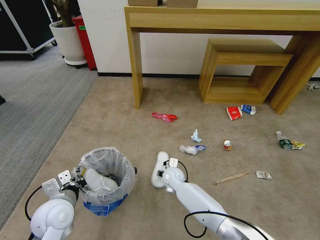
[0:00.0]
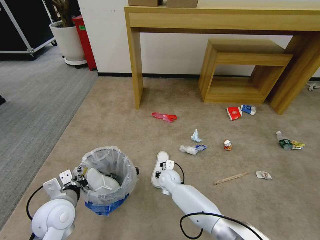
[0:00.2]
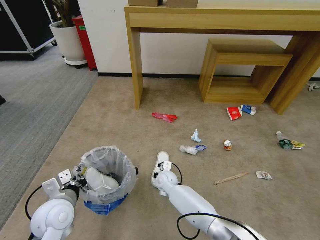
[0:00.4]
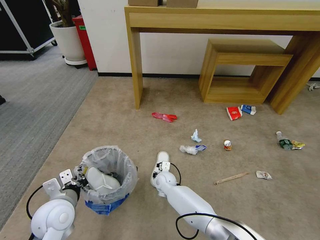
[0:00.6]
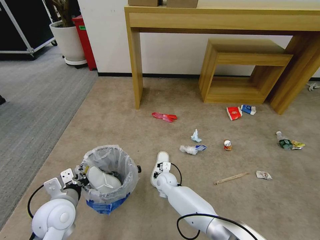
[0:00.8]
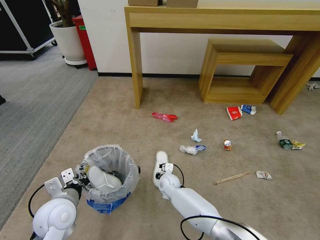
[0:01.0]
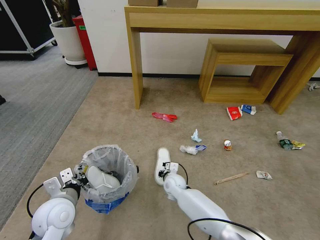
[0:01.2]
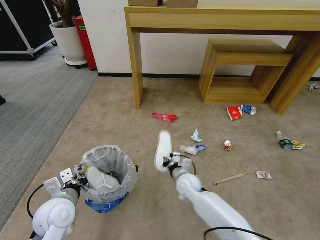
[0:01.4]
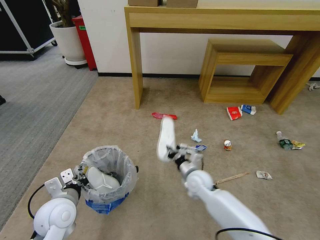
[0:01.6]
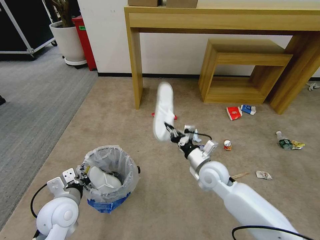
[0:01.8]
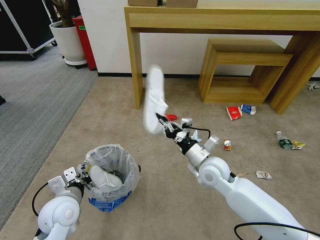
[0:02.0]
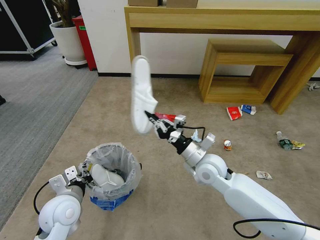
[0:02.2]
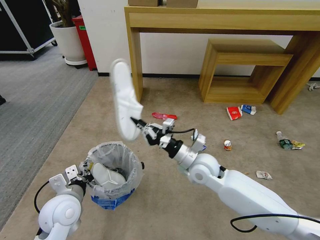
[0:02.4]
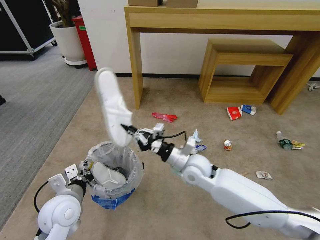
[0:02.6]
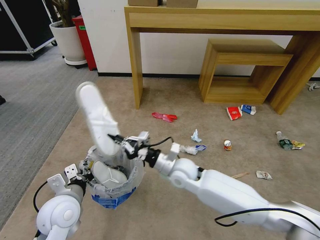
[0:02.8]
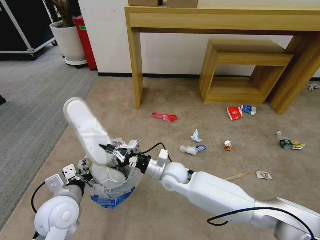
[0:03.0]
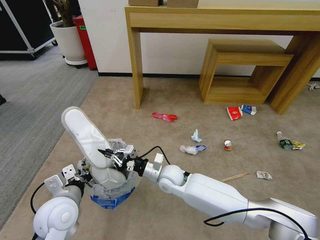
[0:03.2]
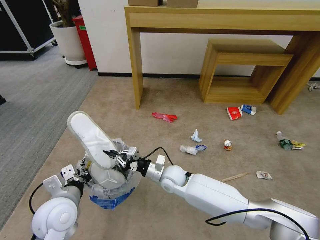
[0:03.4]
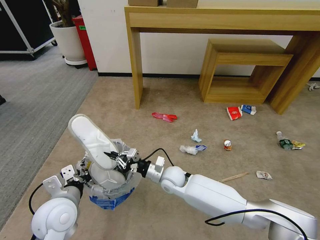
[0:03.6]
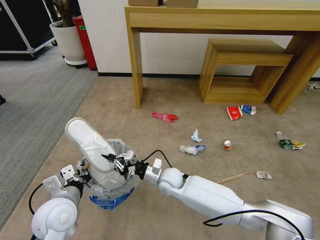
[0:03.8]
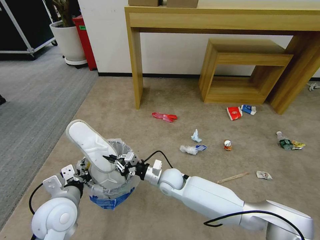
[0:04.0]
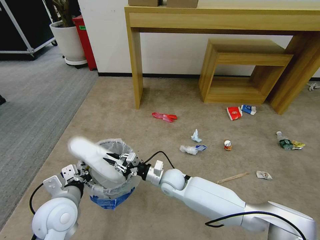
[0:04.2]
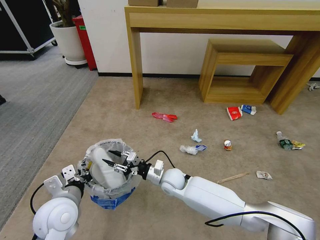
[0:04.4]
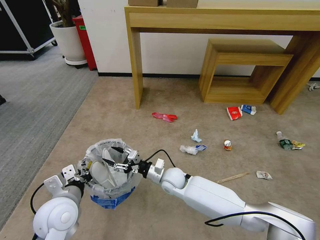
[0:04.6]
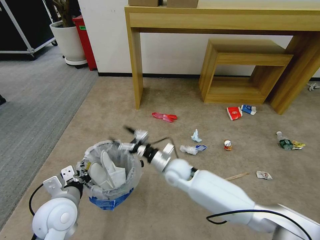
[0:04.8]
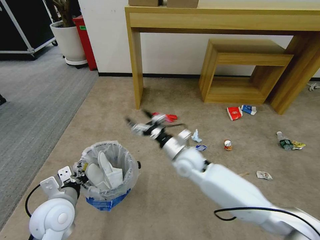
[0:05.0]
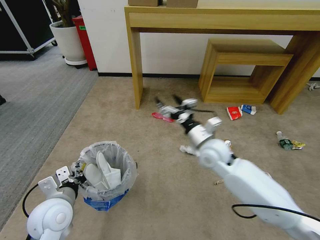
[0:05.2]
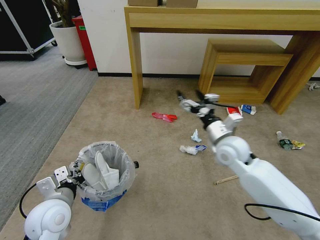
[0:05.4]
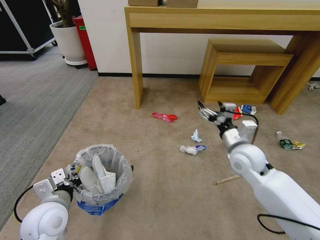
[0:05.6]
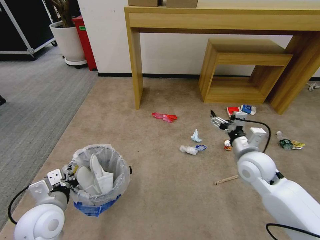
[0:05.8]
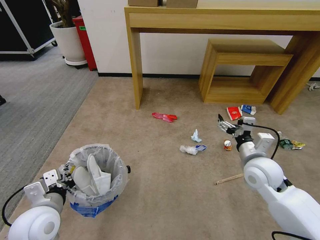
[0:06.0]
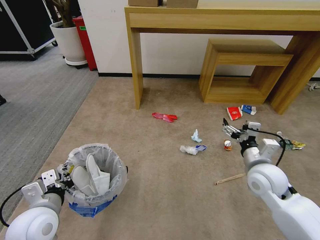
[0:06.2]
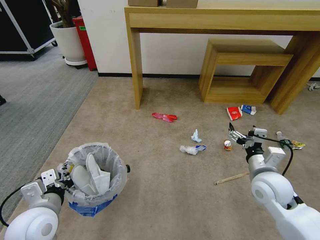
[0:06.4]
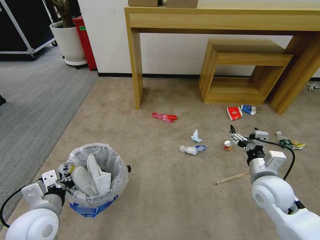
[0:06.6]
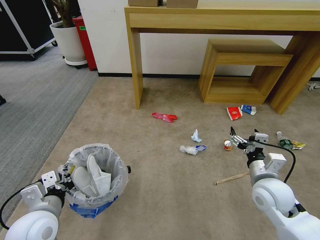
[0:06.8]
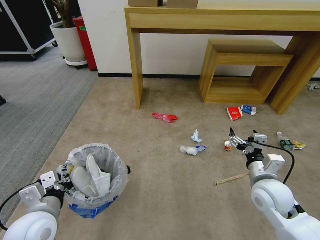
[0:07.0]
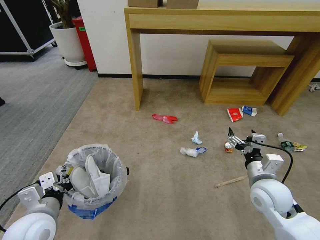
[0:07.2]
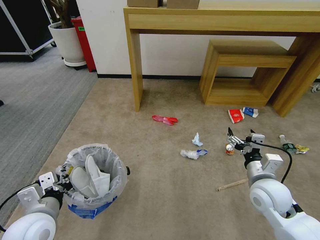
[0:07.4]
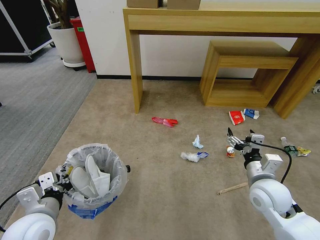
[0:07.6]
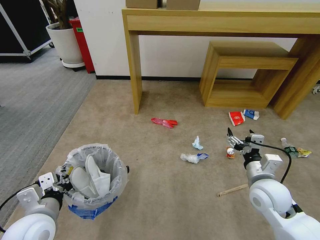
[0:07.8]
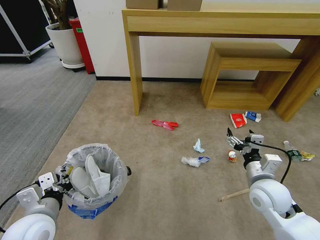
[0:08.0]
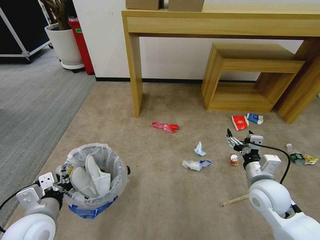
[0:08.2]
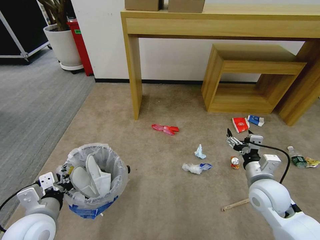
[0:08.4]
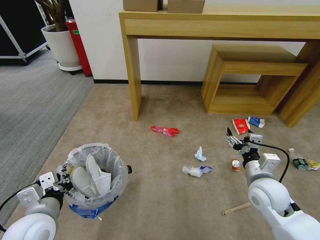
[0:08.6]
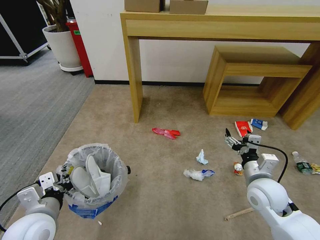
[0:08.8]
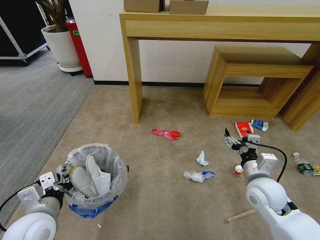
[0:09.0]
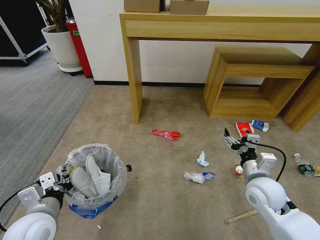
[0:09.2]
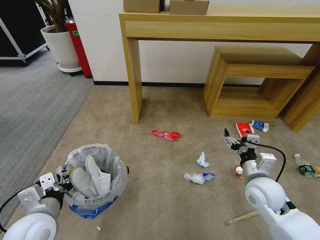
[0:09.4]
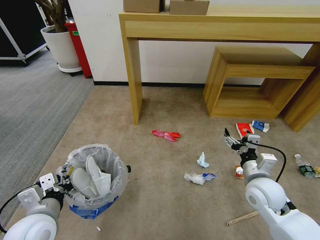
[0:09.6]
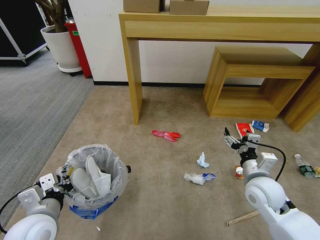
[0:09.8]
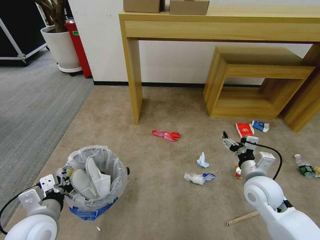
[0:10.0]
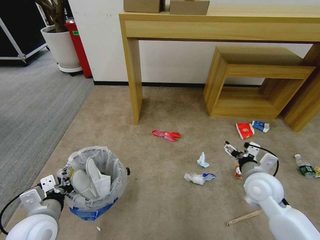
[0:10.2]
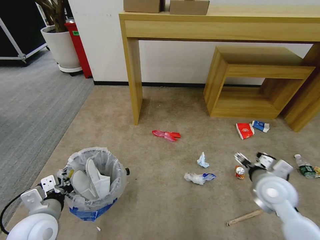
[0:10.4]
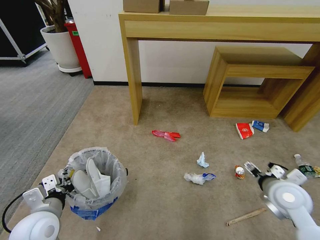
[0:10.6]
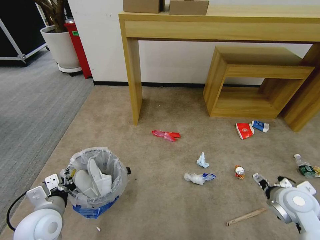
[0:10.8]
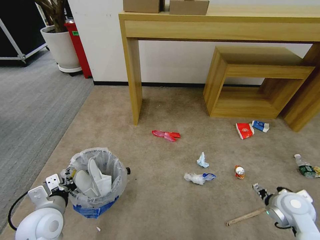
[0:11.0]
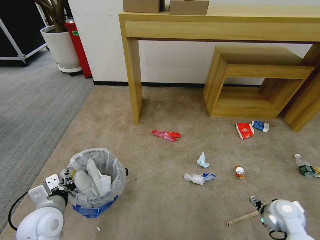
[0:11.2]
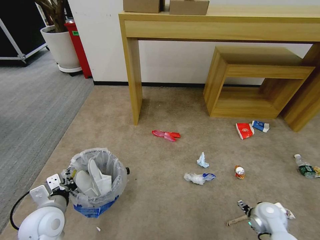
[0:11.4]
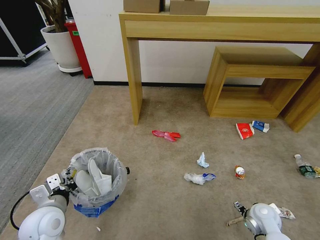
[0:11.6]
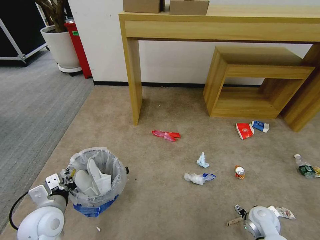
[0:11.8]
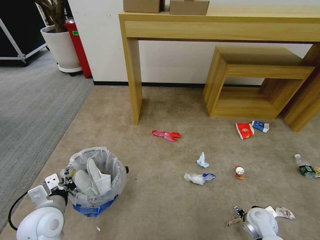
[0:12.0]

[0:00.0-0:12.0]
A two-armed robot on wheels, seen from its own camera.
Task of the whole recording: Pick up the trash bin and place the garbage on the floor into it.
0:00.0 to 0:01.6: The right gripper goes some 15 cm to the right, upward and backward, and closes up.
0:01.6 to 0:03.0: The right gripper is displaced to the left by about 10 cm.
0:03.0 to 0:04.4: The right gripper travels downward by some 5 cm, and opens its fingers.
0:04.4 to 0:06.0: The right gripper heads to the right and upward, covering roughly 30 cm, and opens.
0:06.0 to 0:07.6: The right gripper heads backward, covering some 5 cm.
0:10.4 to 0:12.0: The right gripper is displaced downward by some 20 cm.

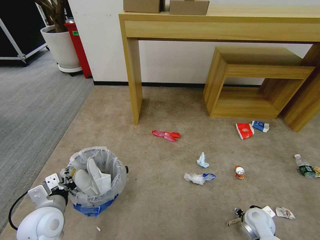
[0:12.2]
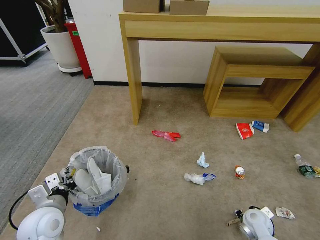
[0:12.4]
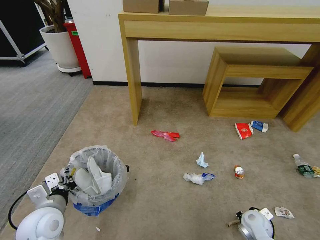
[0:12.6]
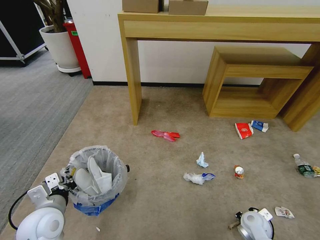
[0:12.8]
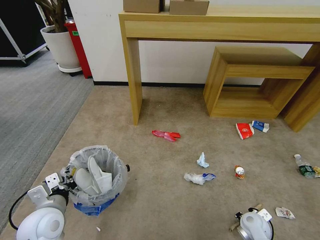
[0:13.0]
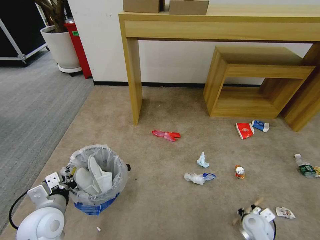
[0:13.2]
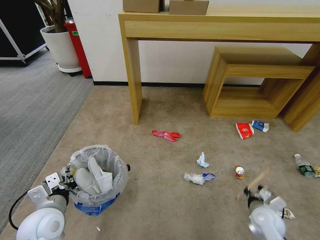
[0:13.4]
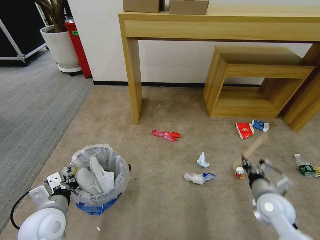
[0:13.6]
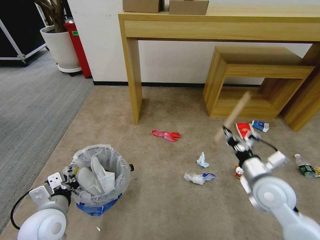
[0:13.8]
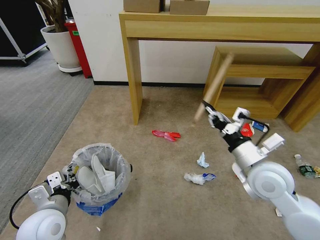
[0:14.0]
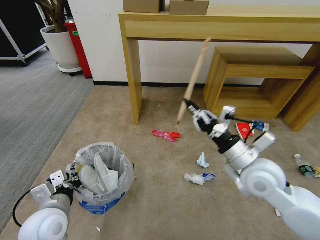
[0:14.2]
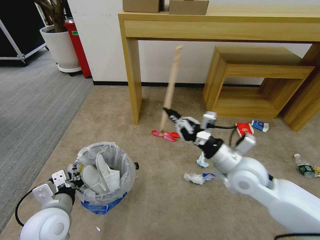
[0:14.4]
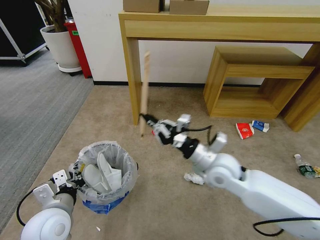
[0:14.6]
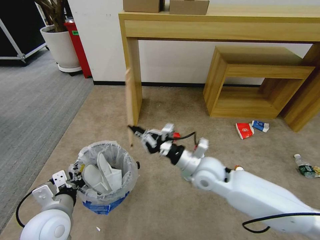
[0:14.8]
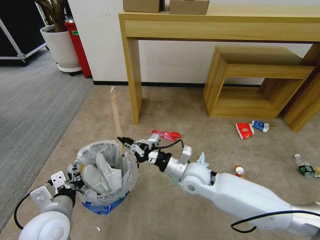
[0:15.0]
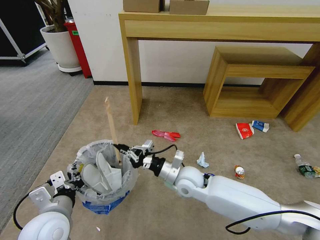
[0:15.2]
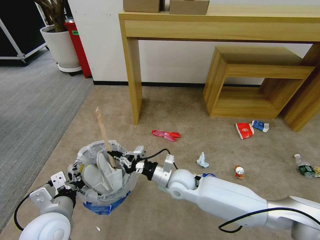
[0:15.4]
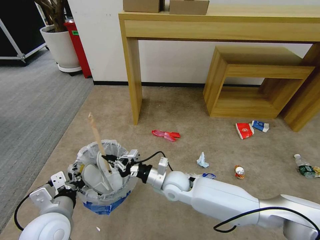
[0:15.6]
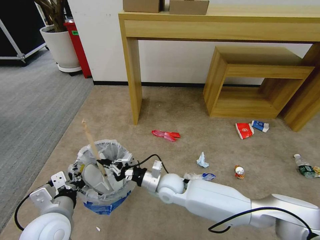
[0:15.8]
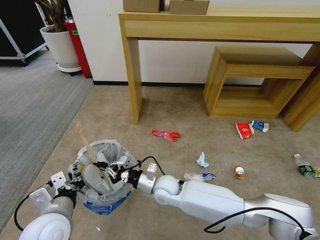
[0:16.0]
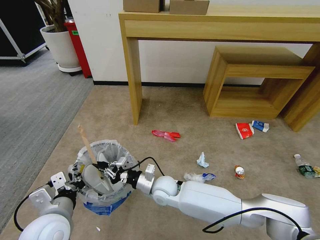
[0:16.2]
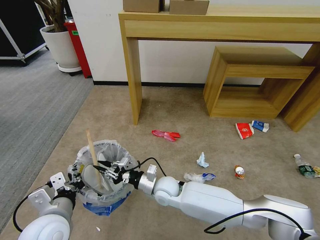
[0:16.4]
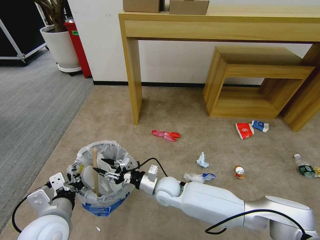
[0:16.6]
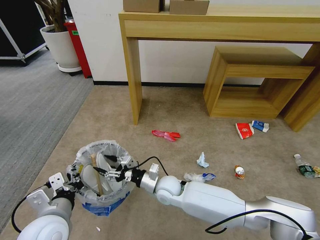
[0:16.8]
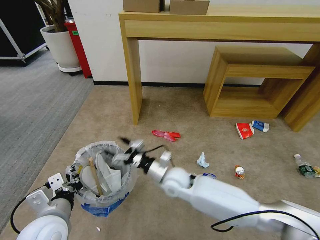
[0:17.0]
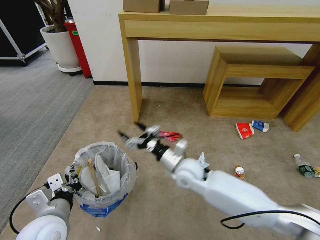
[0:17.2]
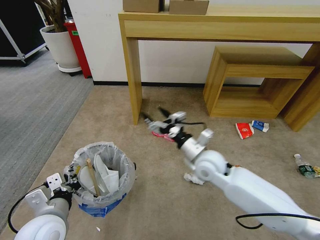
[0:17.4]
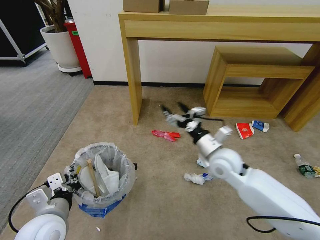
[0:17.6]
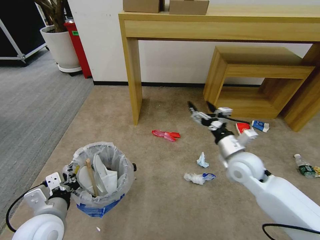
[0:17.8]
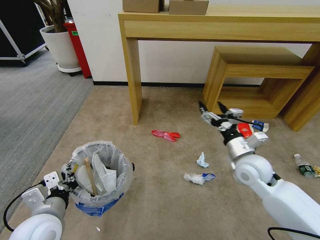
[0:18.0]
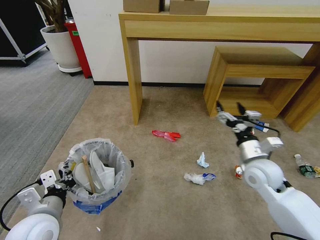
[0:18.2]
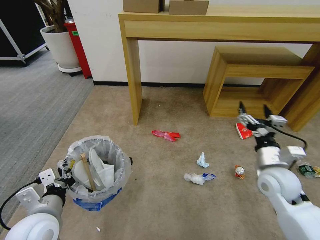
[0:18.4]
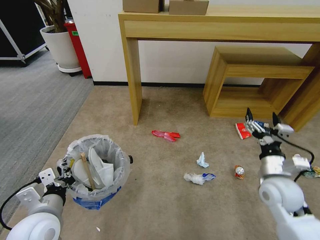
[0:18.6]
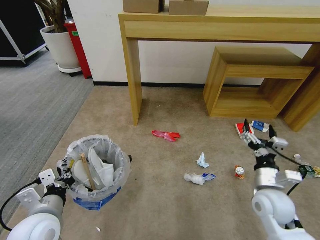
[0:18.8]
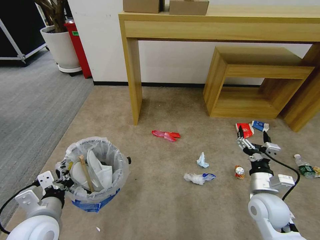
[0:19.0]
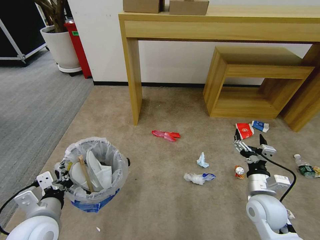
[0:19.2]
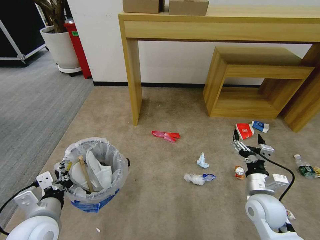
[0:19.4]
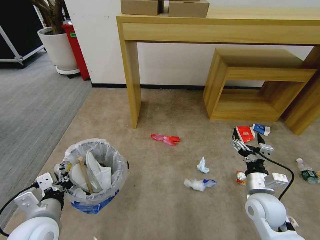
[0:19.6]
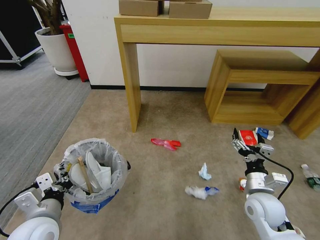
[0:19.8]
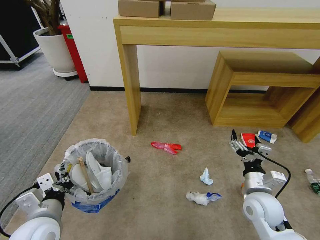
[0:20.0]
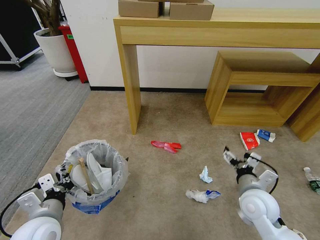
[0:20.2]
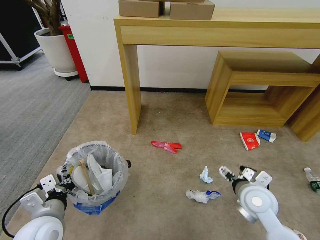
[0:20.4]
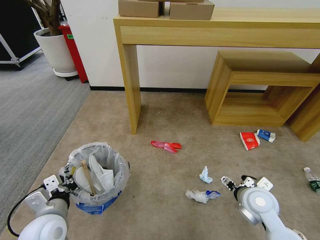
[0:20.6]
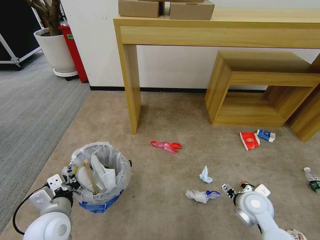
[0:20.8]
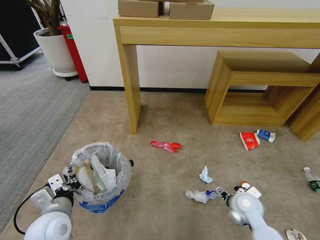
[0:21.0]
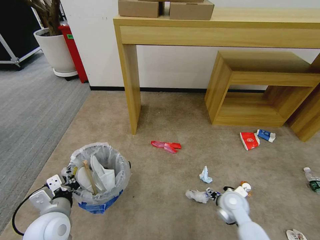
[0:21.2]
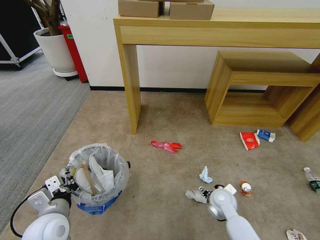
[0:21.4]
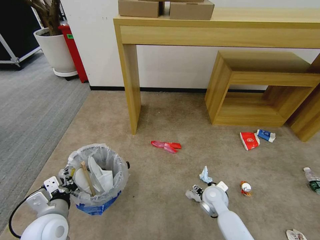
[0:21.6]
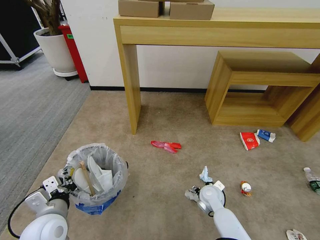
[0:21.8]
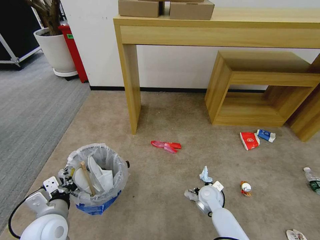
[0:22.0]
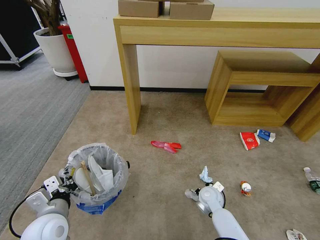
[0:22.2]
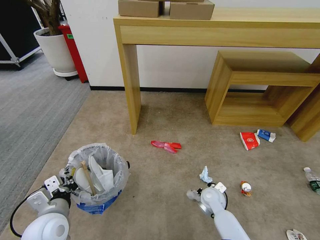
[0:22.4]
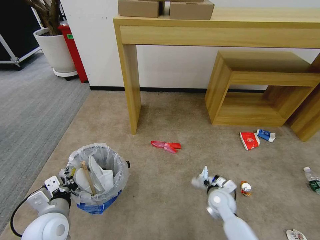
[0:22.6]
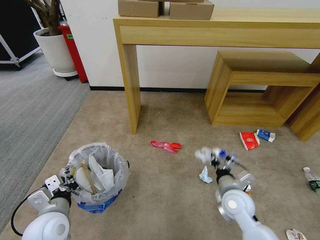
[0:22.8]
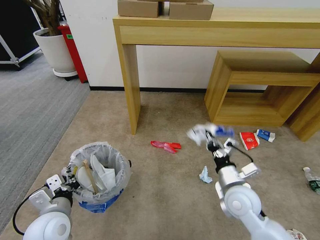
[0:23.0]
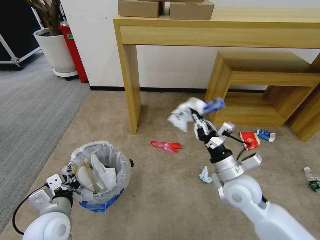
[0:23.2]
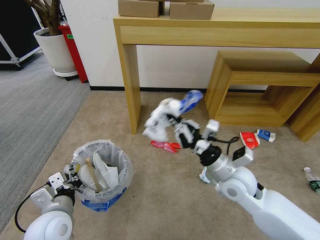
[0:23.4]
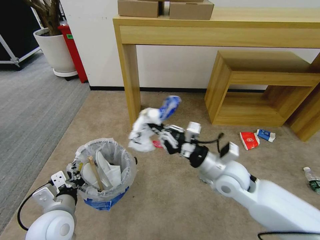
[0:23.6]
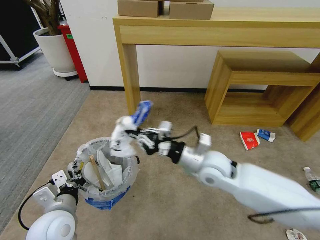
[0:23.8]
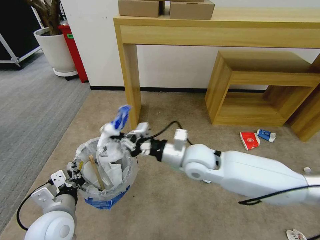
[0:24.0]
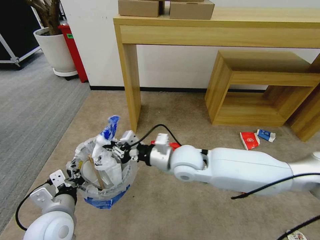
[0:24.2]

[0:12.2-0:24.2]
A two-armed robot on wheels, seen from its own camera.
Task of the whole recording: Pick up the trash bin and place the garbage on the floor into it.
0:12.2 to 0:13.8: The right gripper goes about 20 cm upward, and closes its fingers.
0:13.8 to 0:15.2: The right gripper shifts about 20 cm to the left.
0:15.2 to 0:16.6: The right gripper goes about 10 cm downward and to the left, and opens its fingers.
0:16.6 to 0:18.2: The right gripper moves to the right and upward, roughly 30 cm, and opens up.
0:18.2 to 0:19.8: The right gripper goes some 10 cm backward and downward.
0:19.8 to 0:21.2: The right gripper shifts about 10 cm downward.
0:21.2 to 0:22.6: The right gripper closes its fingers.
0:22.6 to 0:24.2: The right gripper travels upward and to the left by some 25 cm.
